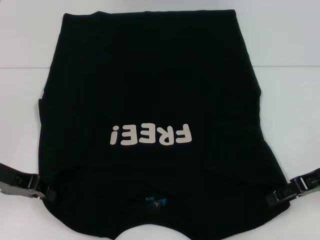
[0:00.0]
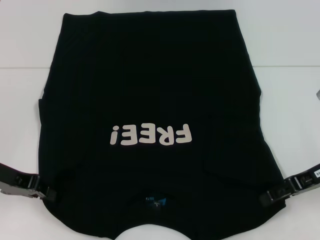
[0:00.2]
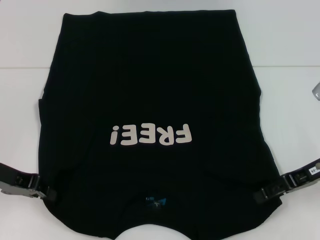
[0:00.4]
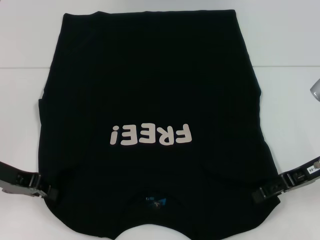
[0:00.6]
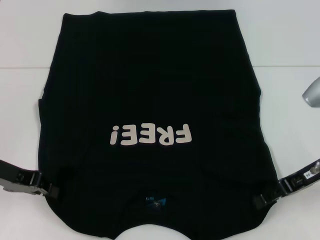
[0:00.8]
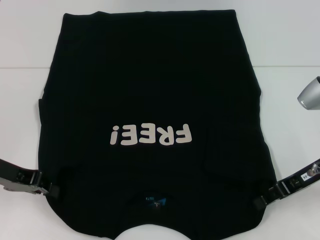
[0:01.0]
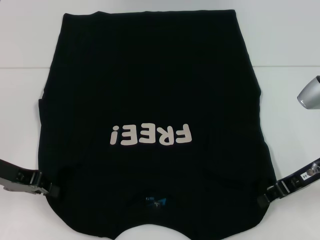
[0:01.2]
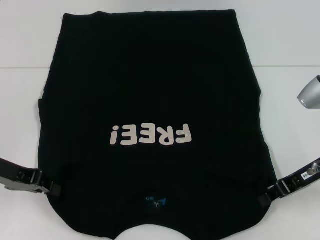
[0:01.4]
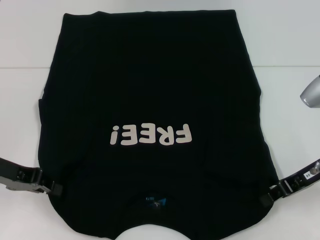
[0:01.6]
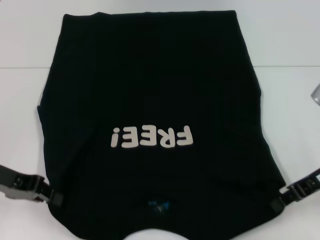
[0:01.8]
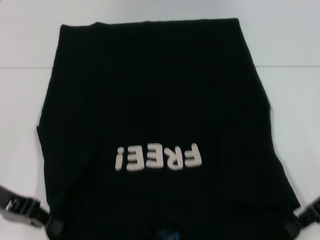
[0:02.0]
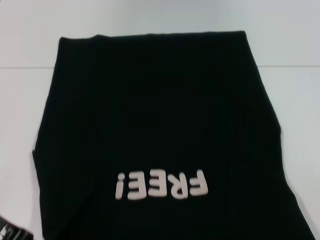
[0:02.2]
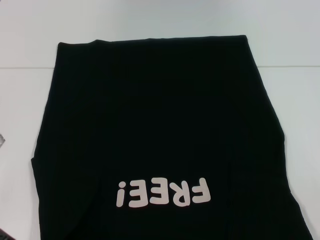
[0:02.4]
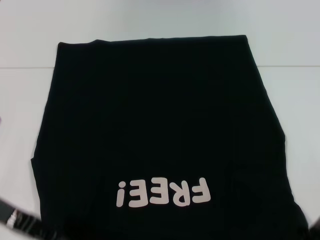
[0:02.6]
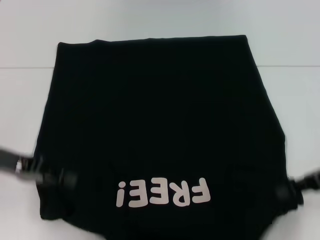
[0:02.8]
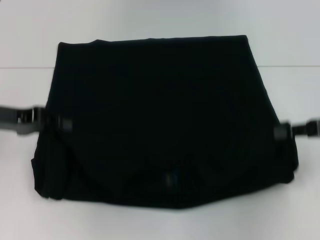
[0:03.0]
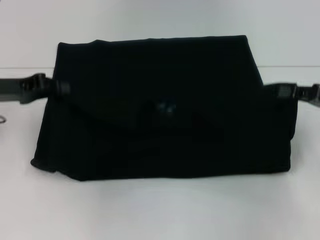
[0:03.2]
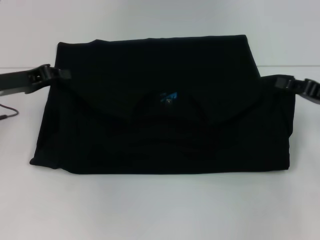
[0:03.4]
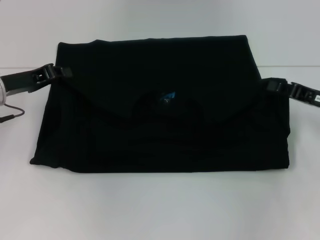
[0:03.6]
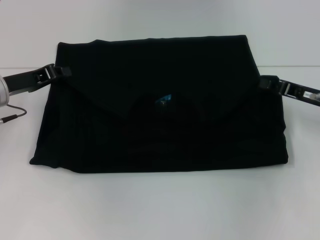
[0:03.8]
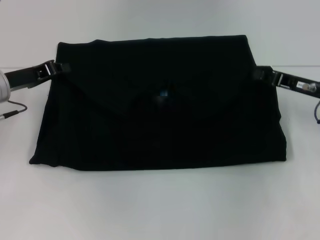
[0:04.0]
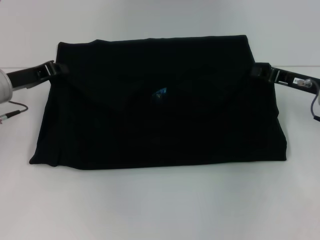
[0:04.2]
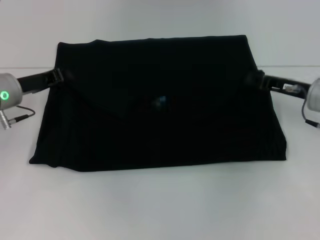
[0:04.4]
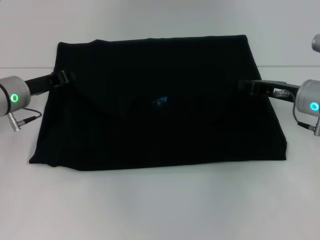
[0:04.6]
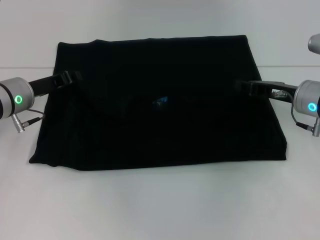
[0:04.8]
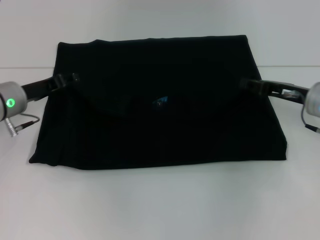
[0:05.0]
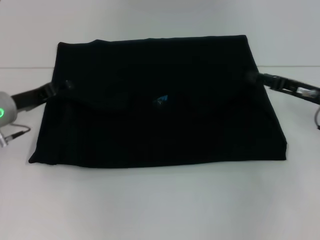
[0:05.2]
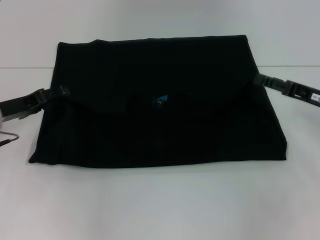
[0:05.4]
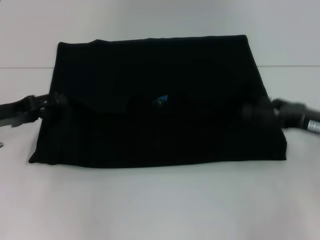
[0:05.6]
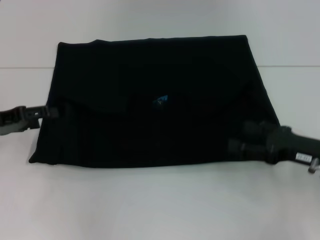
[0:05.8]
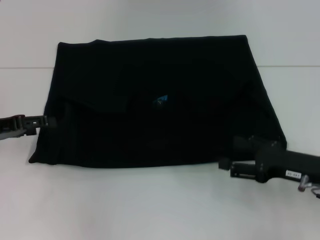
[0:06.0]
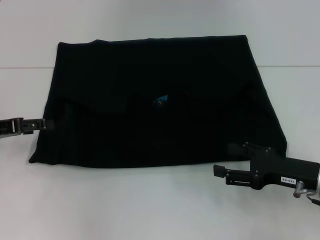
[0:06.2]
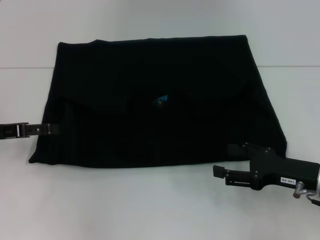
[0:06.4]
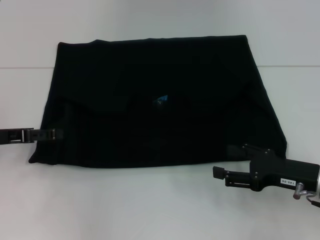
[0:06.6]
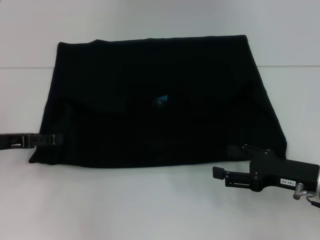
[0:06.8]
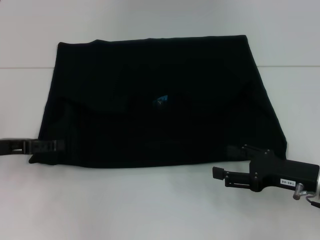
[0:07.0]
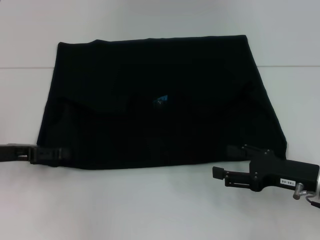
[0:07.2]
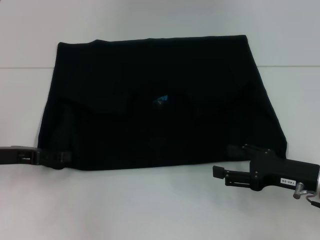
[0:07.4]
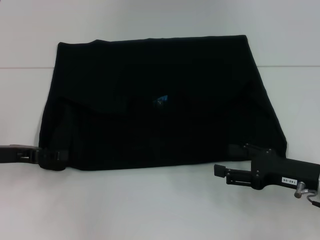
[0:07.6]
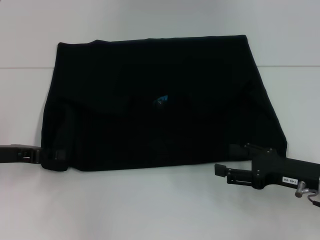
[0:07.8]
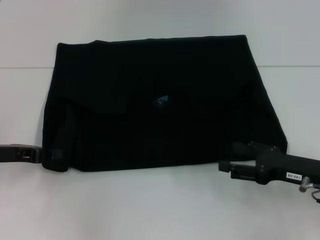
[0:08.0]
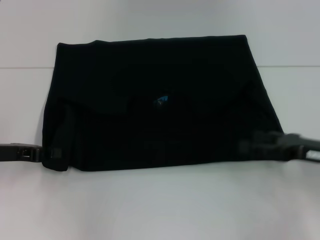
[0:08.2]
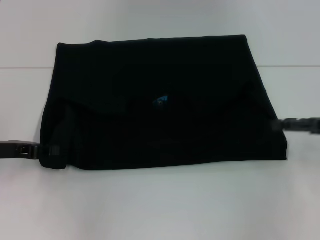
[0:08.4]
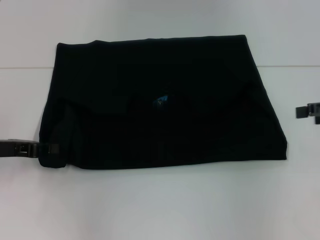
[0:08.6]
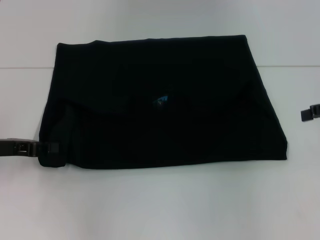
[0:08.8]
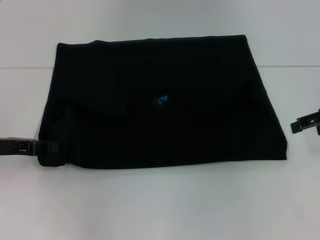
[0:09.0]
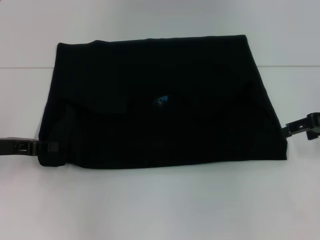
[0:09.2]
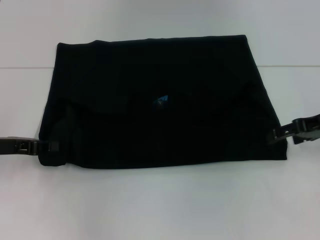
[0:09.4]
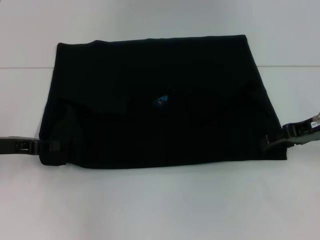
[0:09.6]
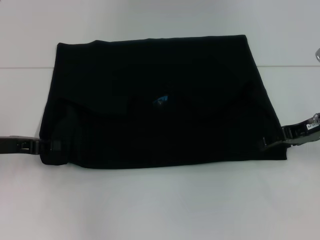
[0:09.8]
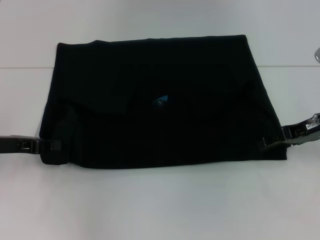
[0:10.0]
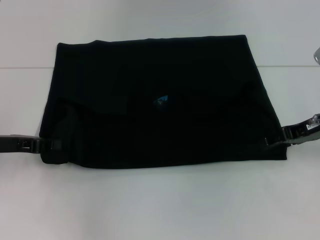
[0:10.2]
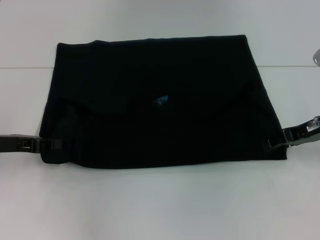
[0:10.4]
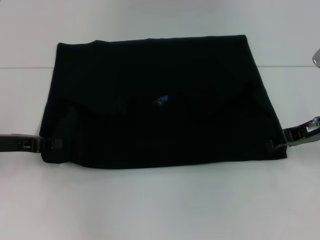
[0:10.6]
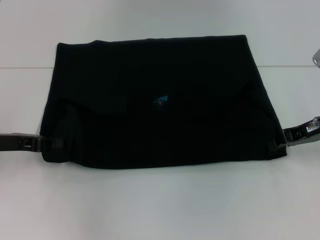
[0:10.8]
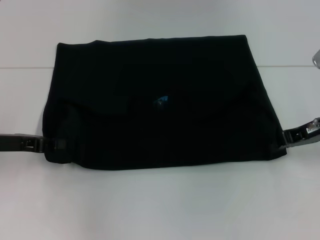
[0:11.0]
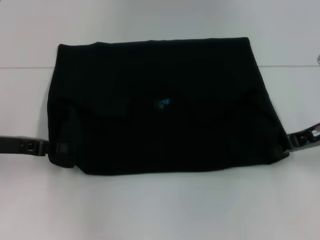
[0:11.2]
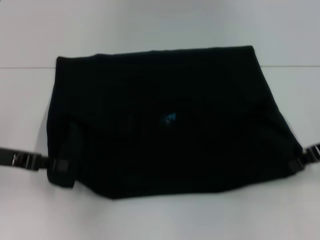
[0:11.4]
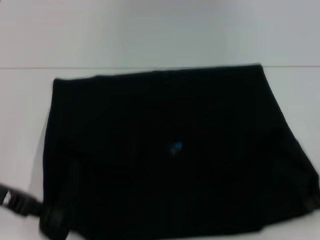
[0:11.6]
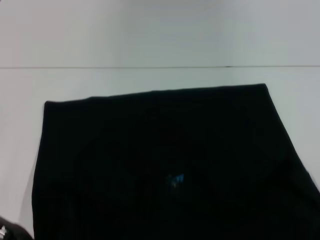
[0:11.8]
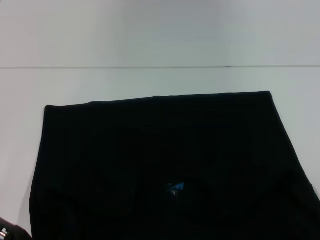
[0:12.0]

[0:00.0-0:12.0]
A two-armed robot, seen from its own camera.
Step, 0.6 to 5.0 s: Fold the clothes with your left hand.
Step, 0.6 to 5.0 s: Fold the clothes with your right hand.
Step, 5.2 to 12.0 s: Pull the clothes with your left hand.
Step, 5.2 to 12.0 s: Pull the clothes with your right hand.
0.0 to 1.6 s: The right gripper closes its fingers.
1.6 to 3.0 s: The right gripper shifts roughly 5 cm to the right.
3.0 to 4.4 s: The right gripper shifts about 10 cm forward, to the left and downward. The left gripper is displaced forward by about 5 cm.
4.4 to 6.0 s: The left gripper shifts approximately 10 cm to the left and backward, and opens its fingers; the right gripper moves backward, approximately 10 cm, and opens.
6.0 to 7.6 s: The grippers make only small movements.
7.6 to 9.0 s: The left gripper closes its fingers. The right gripper is displaced upward, forward and to the right by some 15 cm.
9.0 to 10.4 s: The right gripper shifts approximately 5 cm downward and to the left.
10.4 to 12.0 s: The right gripper shifts approximately 10 cm backward, and closes. Meanwhile the left gripper goes approximately 5 cm backward.

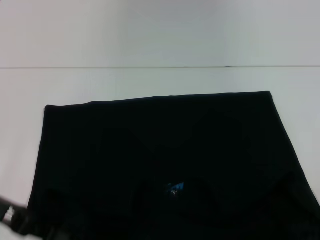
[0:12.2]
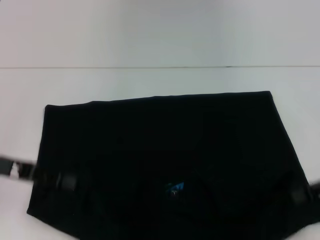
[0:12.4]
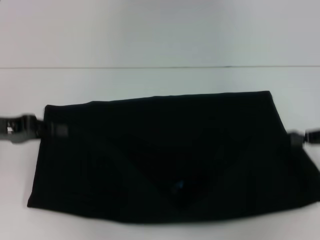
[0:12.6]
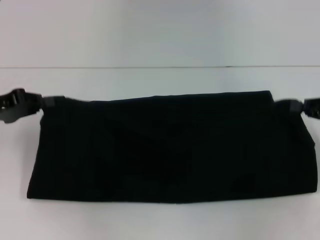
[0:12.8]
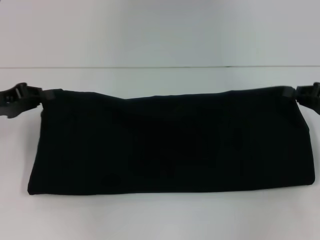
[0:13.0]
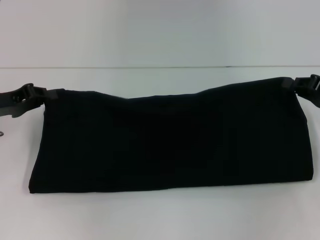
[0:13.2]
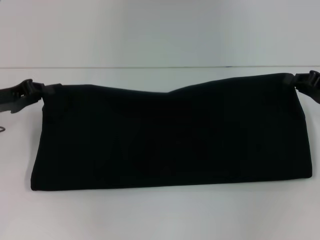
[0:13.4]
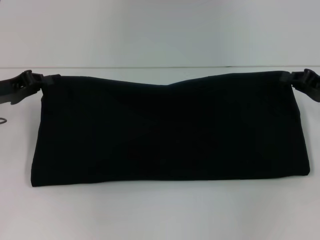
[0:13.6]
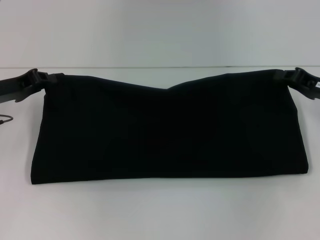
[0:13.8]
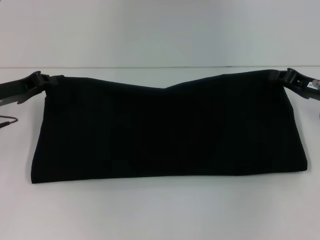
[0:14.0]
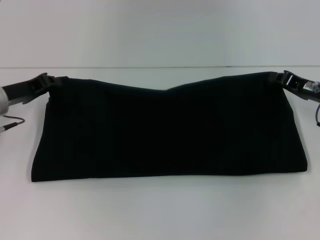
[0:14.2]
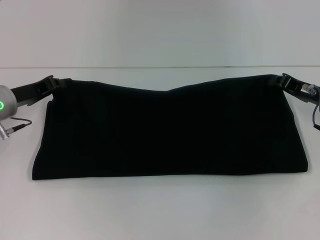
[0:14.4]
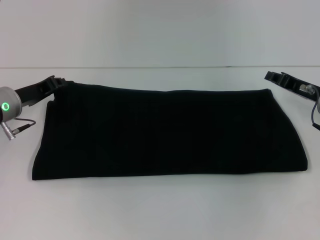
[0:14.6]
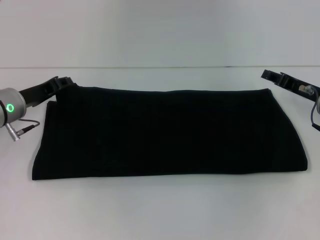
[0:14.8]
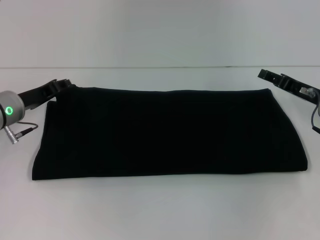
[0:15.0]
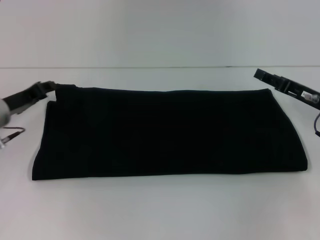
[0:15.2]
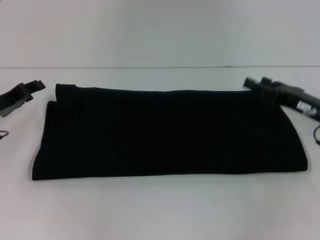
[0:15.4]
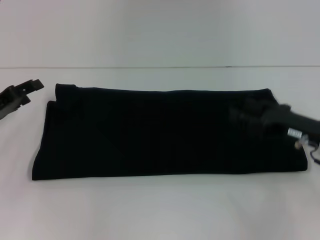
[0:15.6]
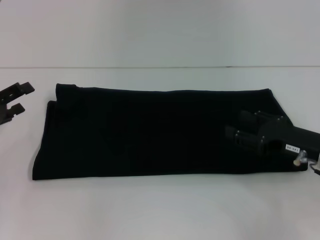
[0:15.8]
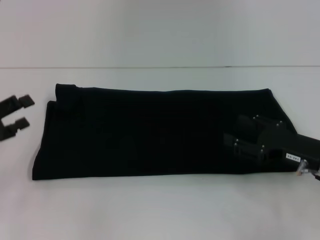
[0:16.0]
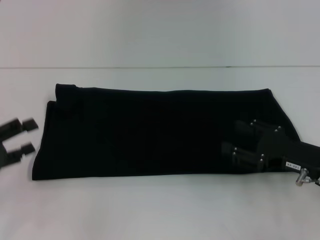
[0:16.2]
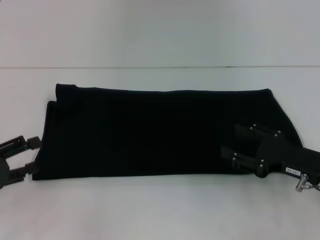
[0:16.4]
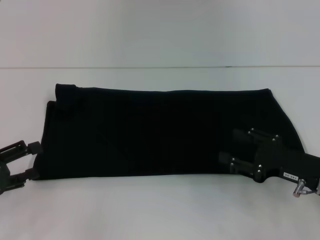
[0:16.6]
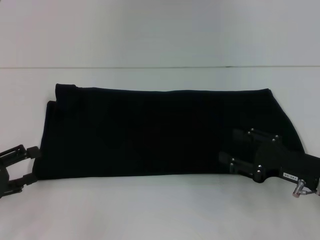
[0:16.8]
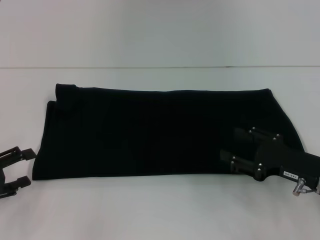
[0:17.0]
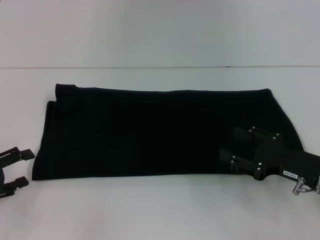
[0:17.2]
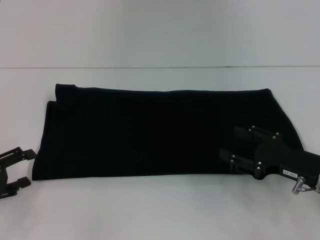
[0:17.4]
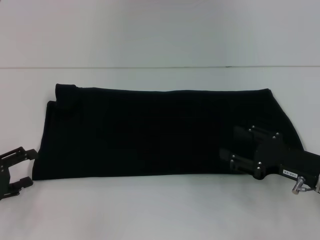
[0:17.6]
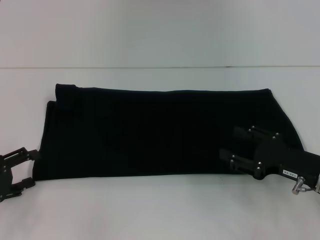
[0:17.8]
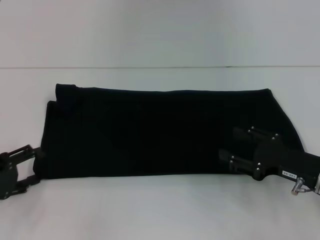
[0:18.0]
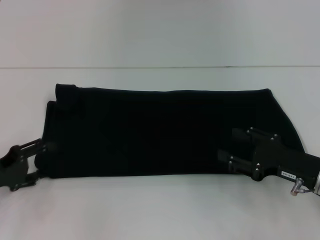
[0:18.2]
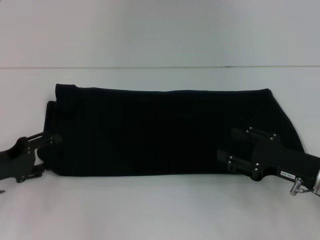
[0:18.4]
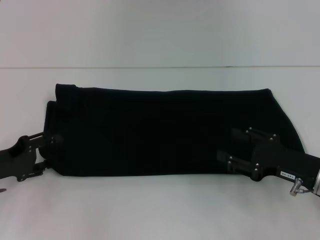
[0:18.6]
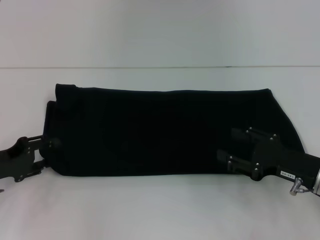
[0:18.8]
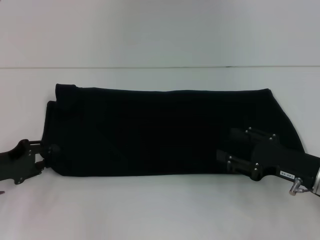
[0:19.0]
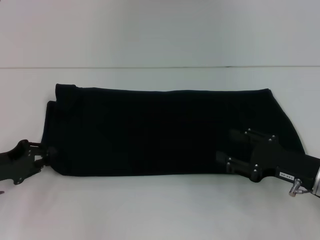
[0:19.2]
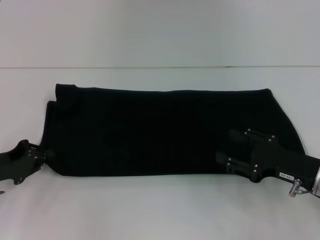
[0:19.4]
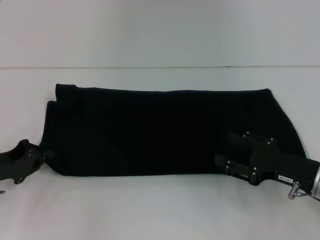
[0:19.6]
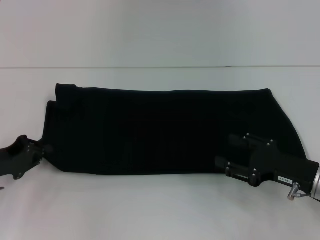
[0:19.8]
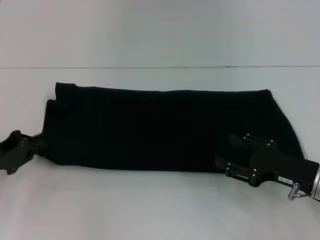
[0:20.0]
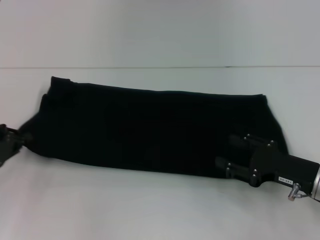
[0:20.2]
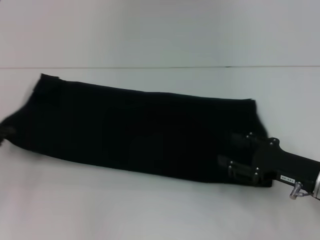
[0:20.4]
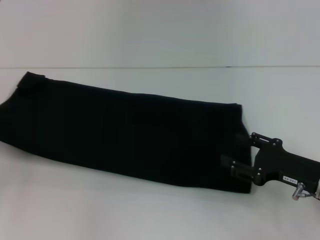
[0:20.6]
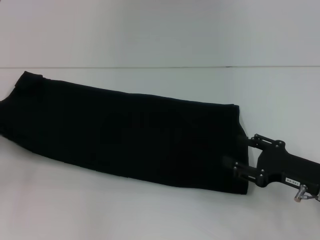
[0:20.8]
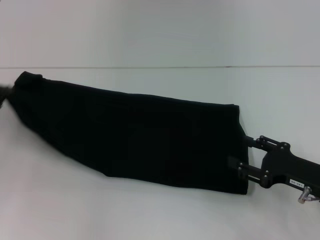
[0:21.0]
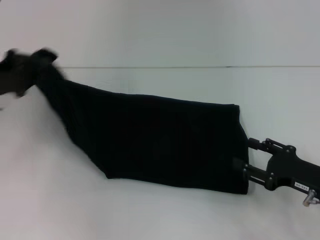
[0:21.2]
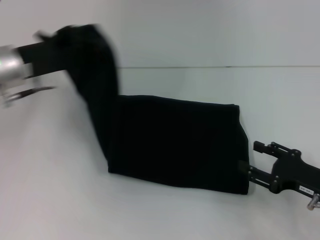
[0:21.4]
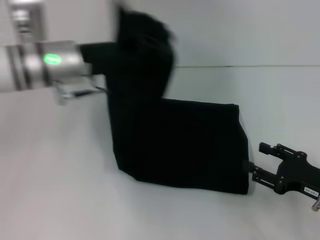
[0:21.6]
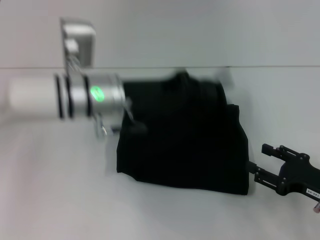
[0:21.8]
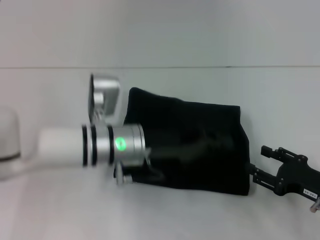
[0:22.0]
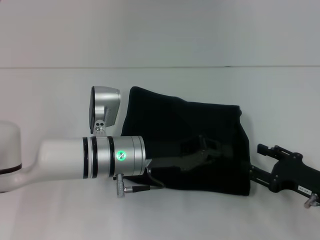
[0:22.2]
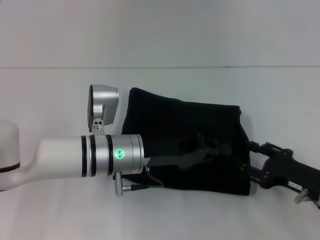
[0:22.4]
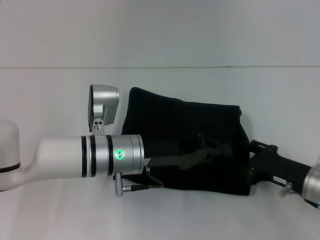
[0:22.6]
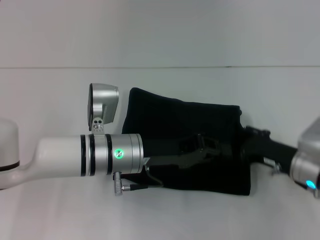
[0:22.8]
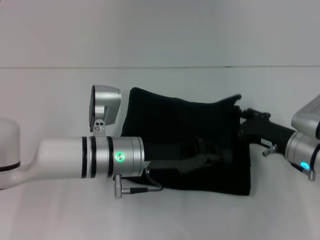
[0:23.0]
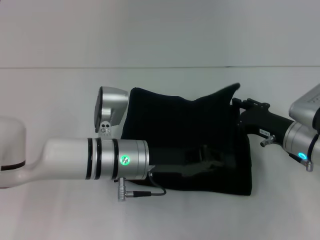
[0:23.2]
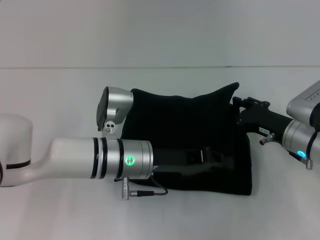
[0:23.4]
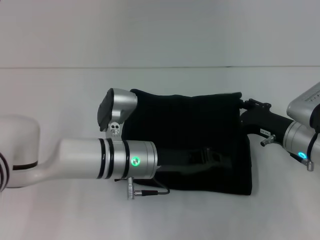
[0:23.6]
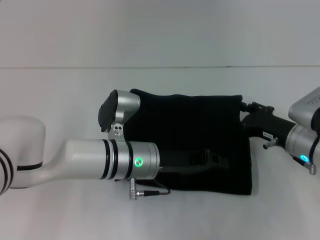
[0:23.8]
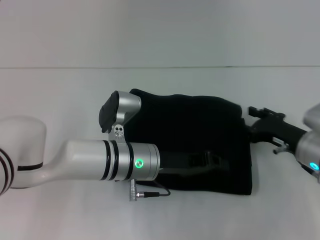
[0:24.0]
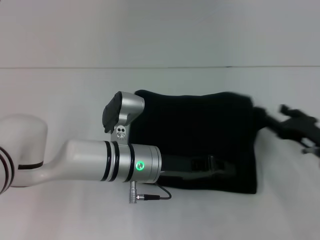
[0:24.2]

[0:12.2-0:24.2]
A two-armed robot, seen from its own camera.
Step, 12.2 to 15.0 s: Fold the clothes with your right hand.
Step, 12.2 to 22.6 s: Fold the clothes with your left hand.
12.2 to 13.8 s: The grippers both shift forward by approximately 10 cm.
13.8 to 15.2 s: The right gripper opens.
15.2 to 16.6 s: The right gripper shifts about 10 cm backward. The left gripper moves backward and to the left, approximately 15 cm, and opens up.
16.6 to 18.2 s: There are only small adjustments of the grippers.
18.2 to 19.8 s: The left gripper closes its fingers.
19.8 to 21.2 s: The left gripper heads upward and forward, covering approximately 10 cm.
21.2 to 22.6 s: The left gripper heads to the right, covering approximately 25 cm.
